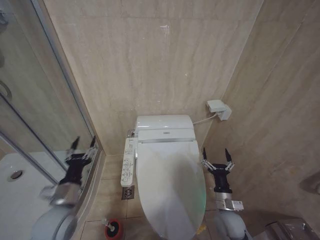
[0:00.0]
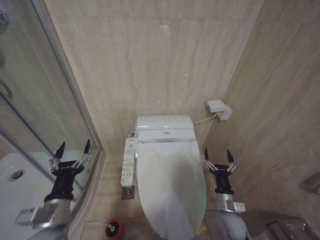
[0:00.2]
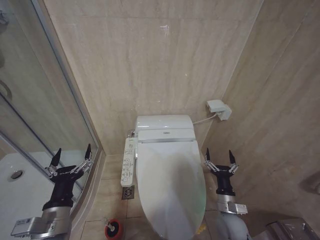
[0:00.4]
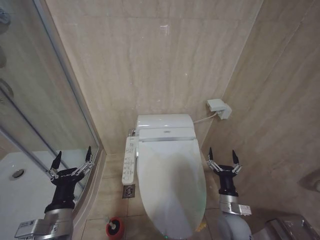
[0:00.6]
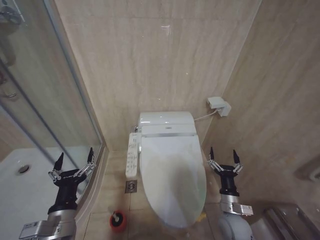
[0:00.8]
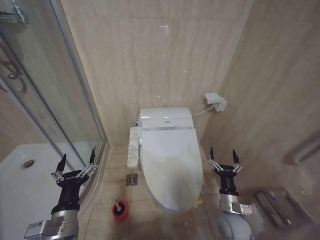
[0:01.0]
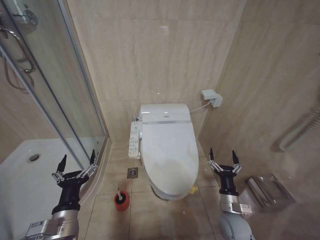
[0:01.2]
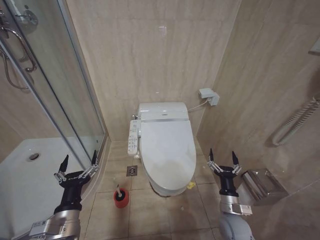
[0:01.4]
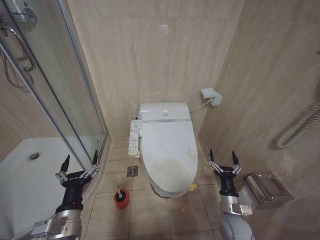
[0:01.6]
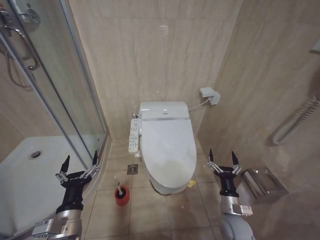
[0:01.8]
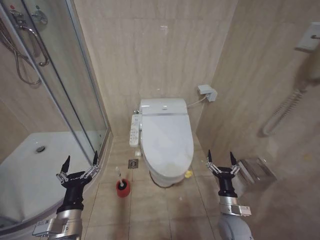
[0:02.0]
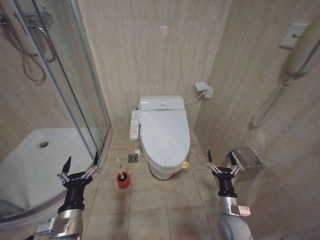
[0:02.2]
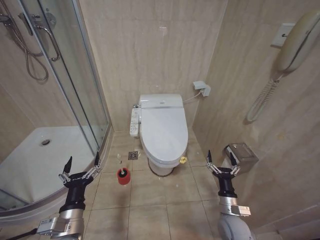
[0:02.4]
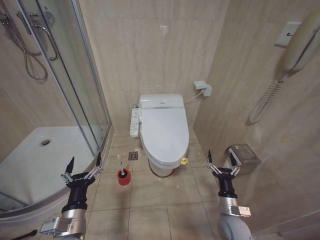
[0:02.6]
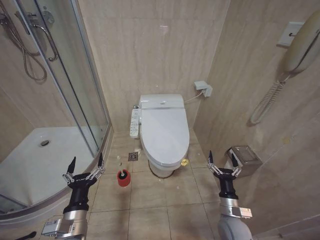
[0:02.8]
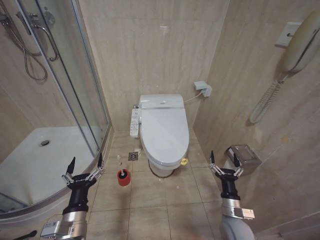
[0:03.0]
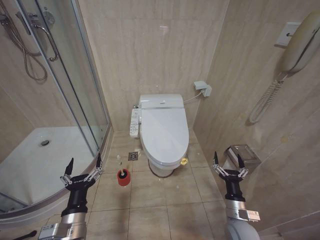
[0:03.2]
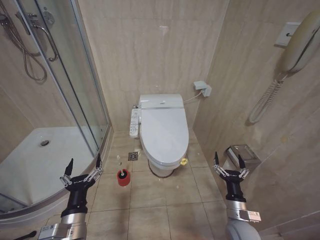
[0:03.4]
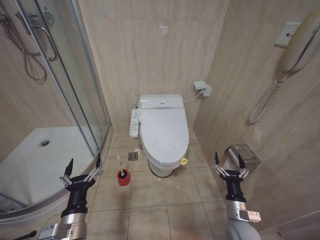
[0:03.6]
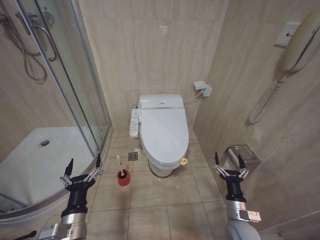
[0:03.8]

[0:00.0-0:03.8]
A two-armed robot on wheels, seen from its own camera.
Task of the whole recording: Open the toilet lid, clean the toilet bowl with a toilet brush, close the toilet lid, and flush.
0:00.0 to 0:01.2: The left gripper travels backward by roughly 10 cm, and opens its fingers.
0:02.6 to 0:03.8: The grippers make only small movements.

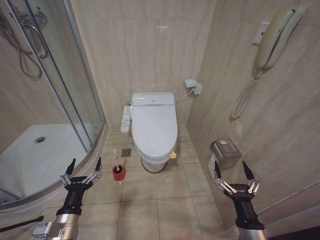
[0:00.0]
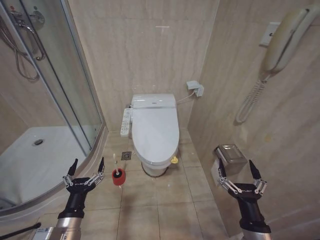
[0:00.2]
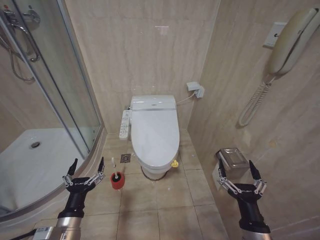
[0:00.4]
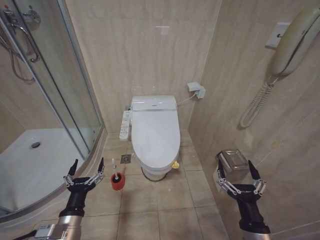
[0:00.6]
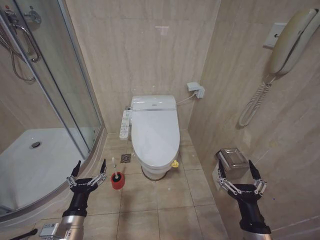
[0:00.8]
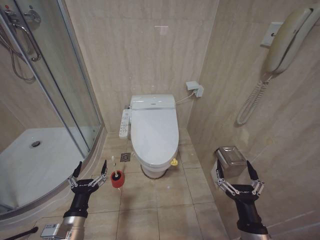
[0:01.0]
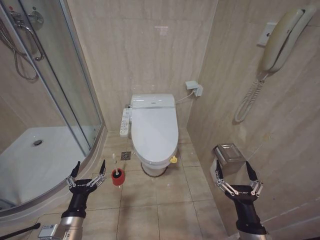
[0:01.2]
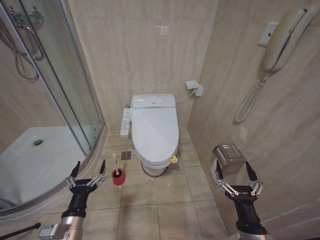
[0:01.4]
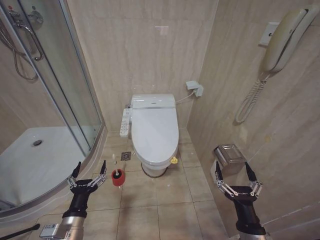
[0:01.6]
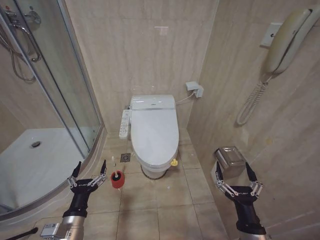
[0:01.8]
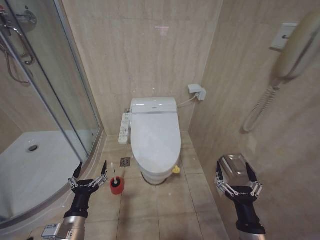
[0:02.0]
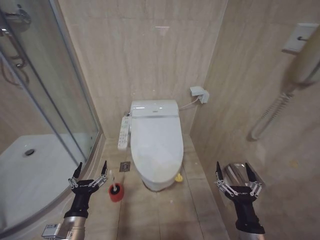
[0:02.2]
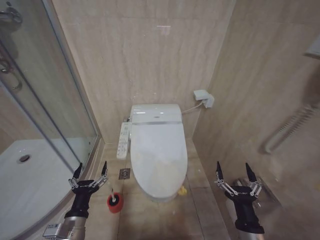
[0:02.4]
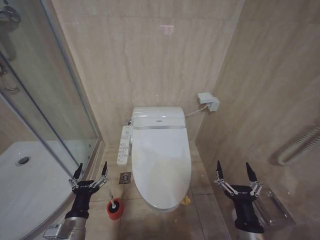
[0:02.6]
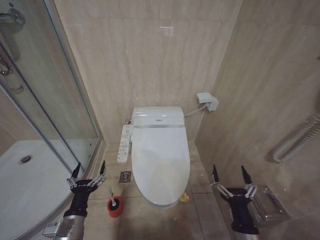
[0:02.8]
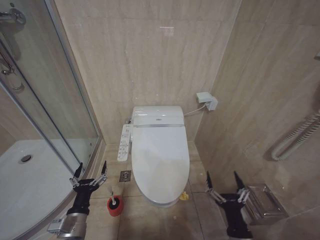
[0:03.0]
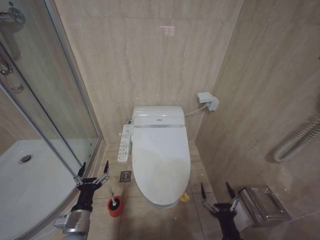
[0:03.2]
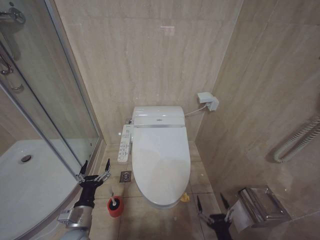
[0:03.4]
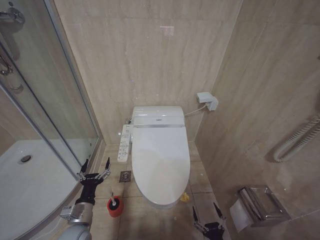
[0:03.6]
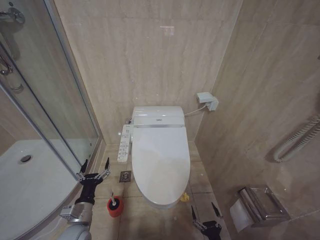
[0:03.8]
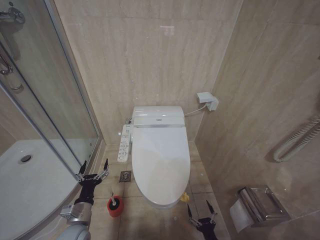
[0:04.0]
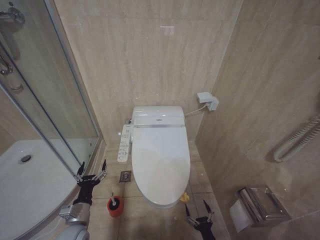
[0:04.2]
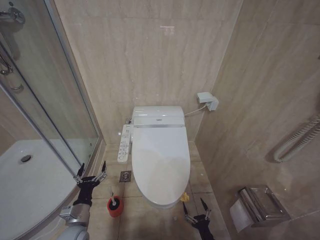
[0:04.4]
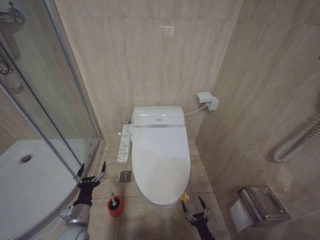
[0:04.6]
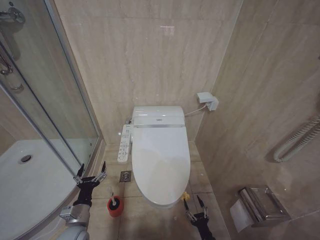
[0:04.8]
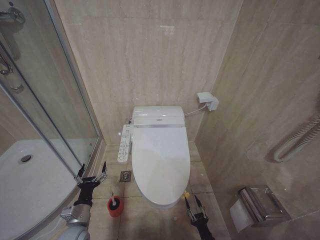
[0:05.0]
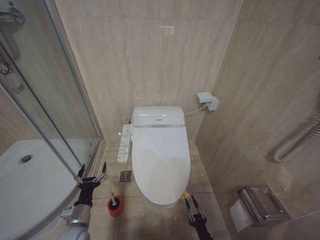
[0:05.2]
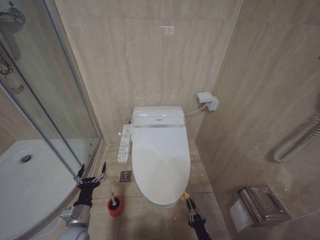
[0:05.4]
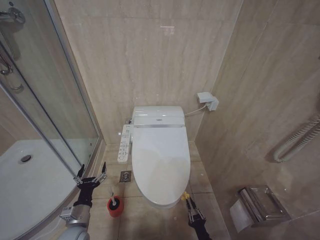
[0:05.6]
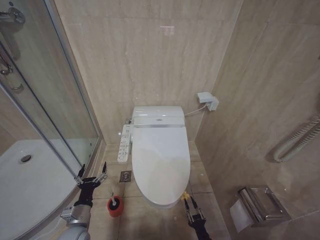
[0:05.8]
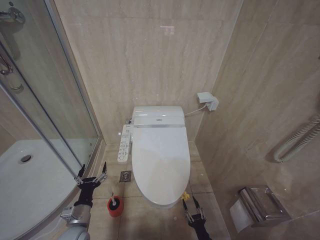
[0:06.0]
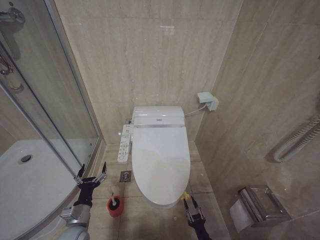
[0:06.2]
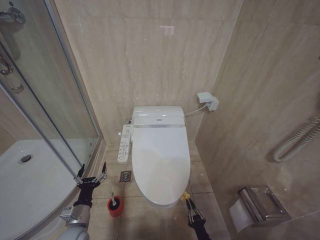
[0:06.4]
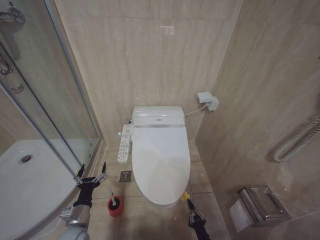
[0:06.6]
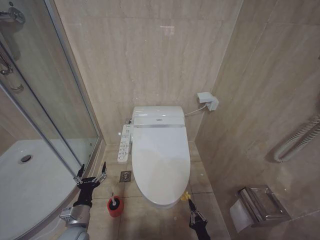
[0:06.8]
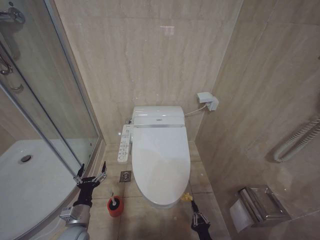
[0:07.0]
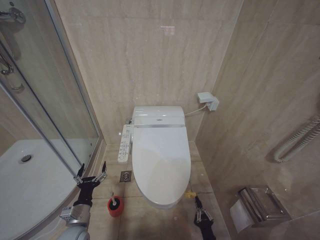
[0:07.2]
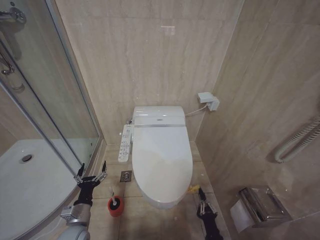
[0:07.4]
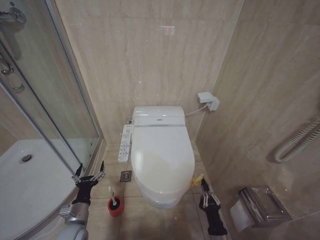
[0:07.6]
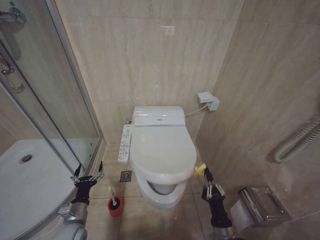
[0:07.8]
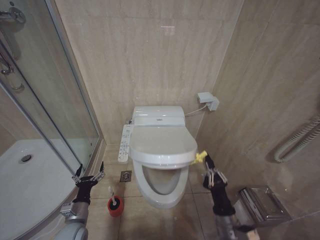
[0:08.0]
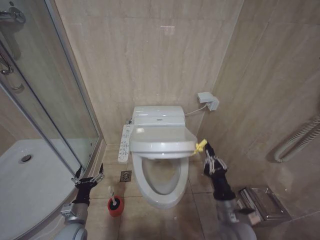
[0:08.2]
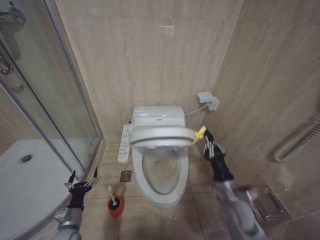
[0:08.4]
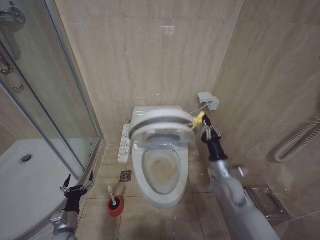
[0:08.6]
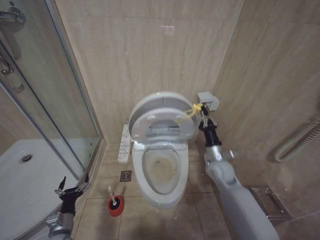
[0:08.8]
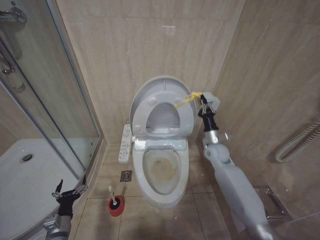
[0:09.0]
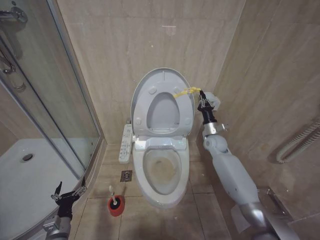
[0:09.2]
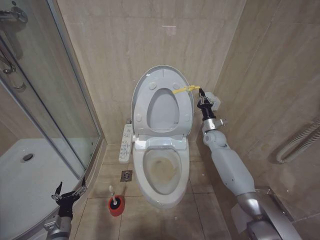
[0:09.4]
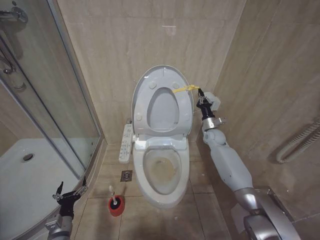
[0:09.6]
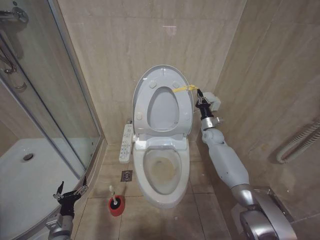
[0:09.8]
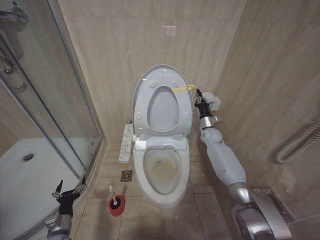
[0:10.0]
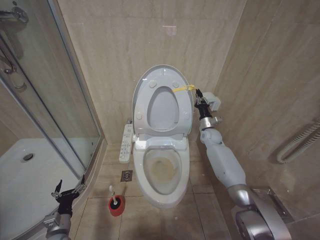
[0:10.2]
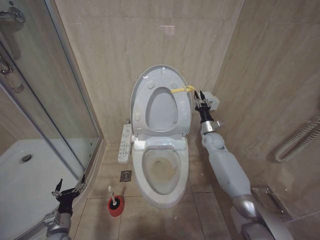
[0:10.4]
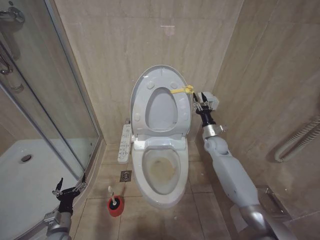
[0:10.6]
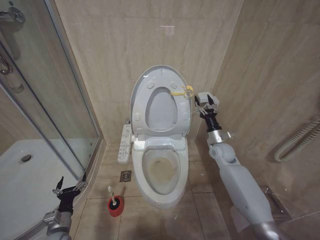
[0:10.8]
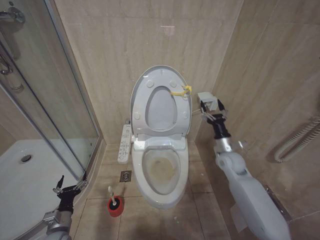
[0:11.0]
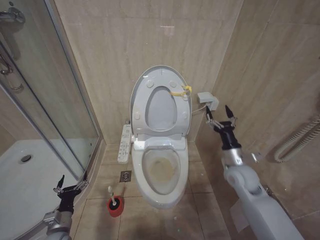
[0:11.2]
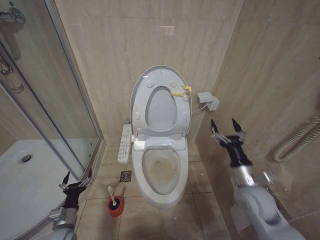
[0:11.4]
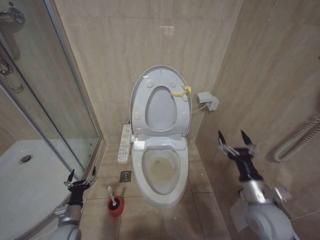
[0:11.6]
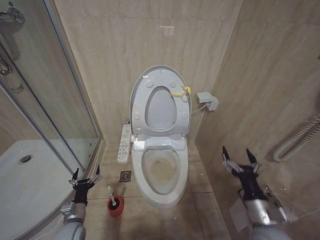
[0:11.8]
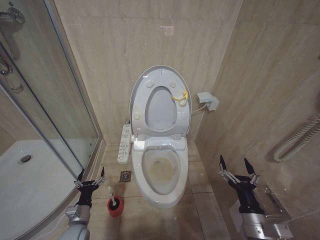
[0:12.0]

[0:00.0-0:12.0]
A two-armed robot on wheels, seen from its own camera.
Task of the whole recording: Open the toilet lid, clean the toilet bowl with a toilet brush, close the toilet lid, and flush.
0:03.0 to 0:04.4: The left gripper is displaced downward by some 5 cm. The right gripper goes about 25 cm downward.
0:06.0 to 0:07.6: The right gripper moves upward, about 10 cm, and closes up.
0:07.6 to 0:09.0: The left gripper is displaced to the left by roughly 5 cm, while the right gripper moves forward and upward, about 40 cm.
0:09.0 to 0:10.4: The right gripper shifts about 10 cm forward.
0:10.4 to 0:12.0: The right gripper shifts roughly 40 cm backward, and opens up. Meanwhile the left gripper shifts roughly 5 cm to the right.

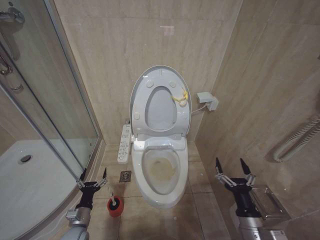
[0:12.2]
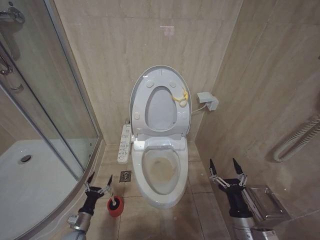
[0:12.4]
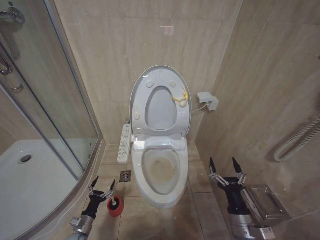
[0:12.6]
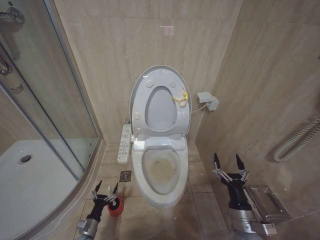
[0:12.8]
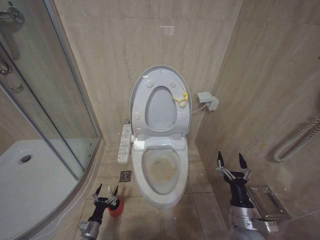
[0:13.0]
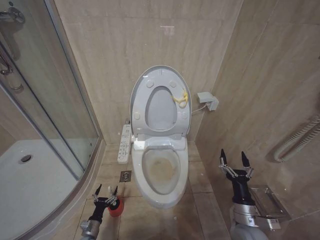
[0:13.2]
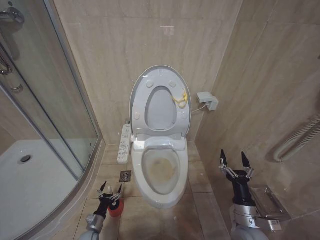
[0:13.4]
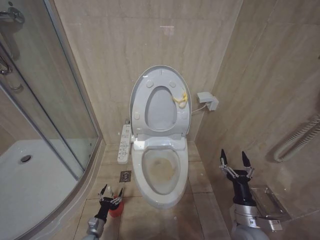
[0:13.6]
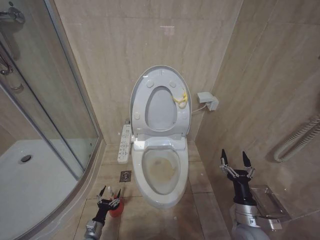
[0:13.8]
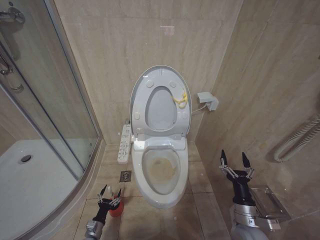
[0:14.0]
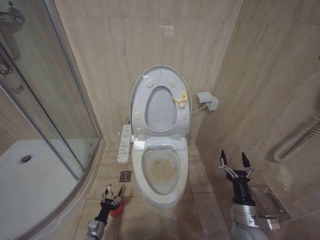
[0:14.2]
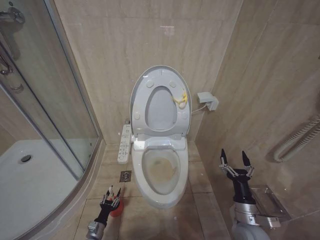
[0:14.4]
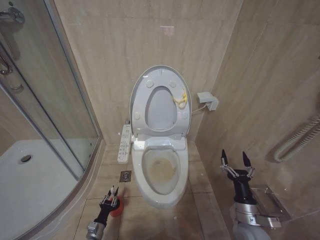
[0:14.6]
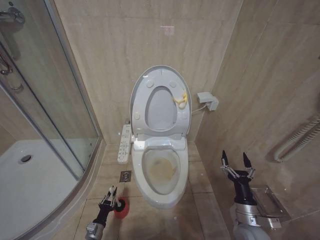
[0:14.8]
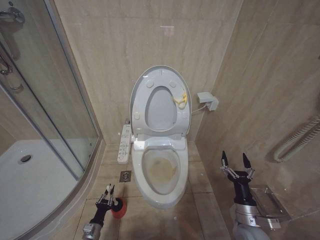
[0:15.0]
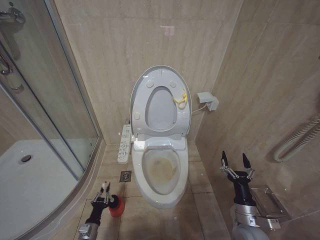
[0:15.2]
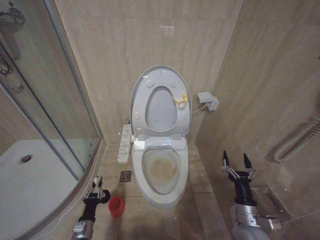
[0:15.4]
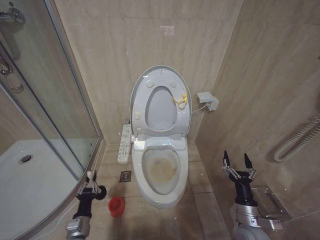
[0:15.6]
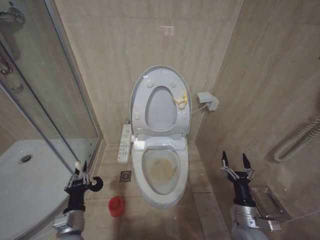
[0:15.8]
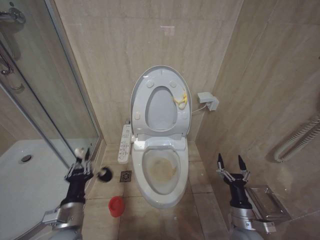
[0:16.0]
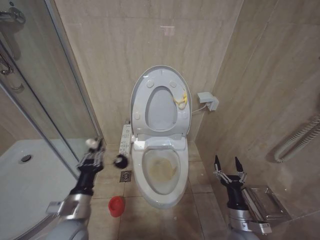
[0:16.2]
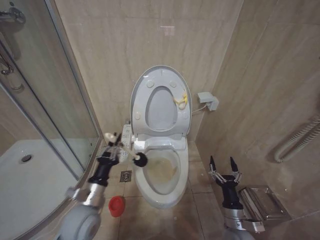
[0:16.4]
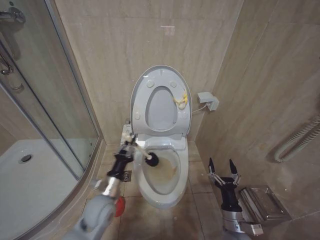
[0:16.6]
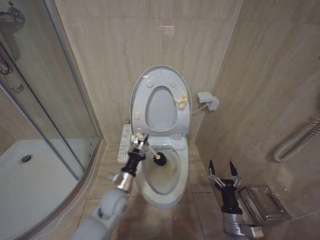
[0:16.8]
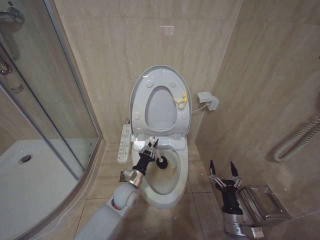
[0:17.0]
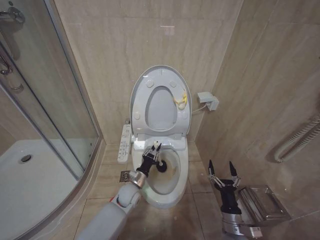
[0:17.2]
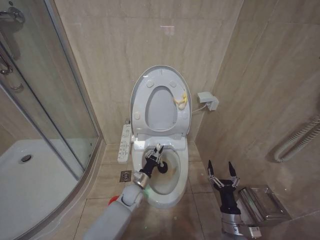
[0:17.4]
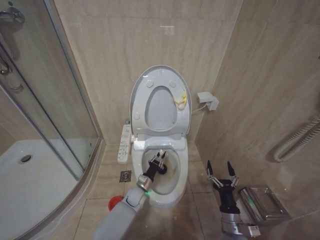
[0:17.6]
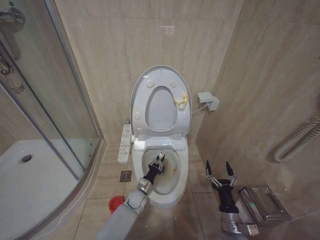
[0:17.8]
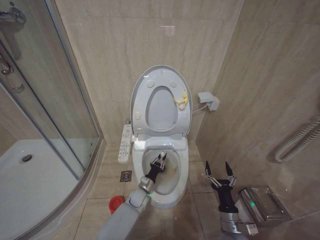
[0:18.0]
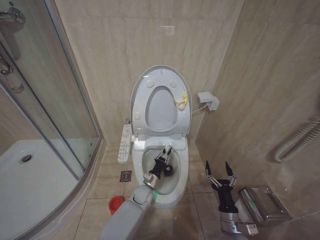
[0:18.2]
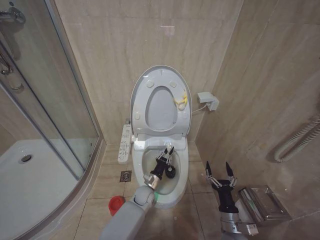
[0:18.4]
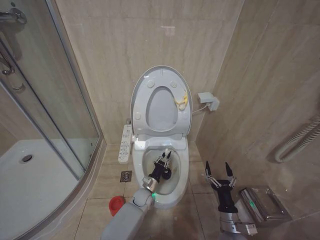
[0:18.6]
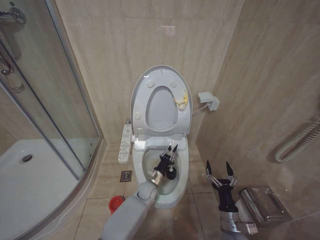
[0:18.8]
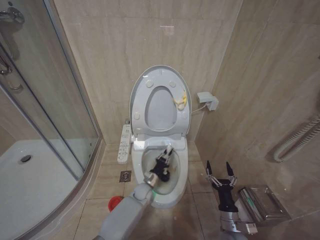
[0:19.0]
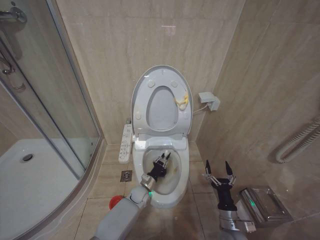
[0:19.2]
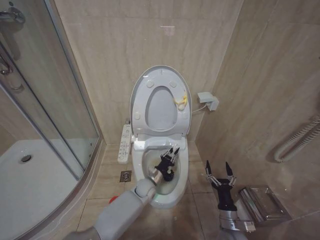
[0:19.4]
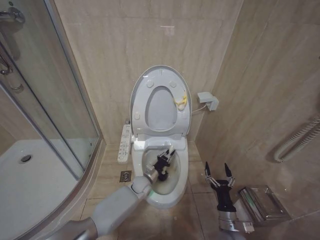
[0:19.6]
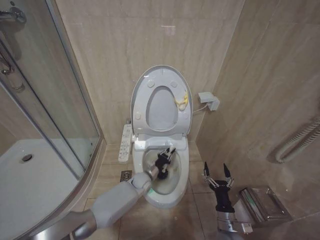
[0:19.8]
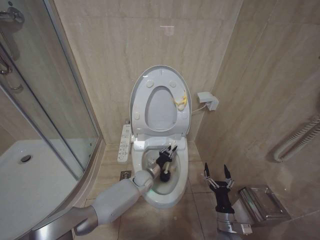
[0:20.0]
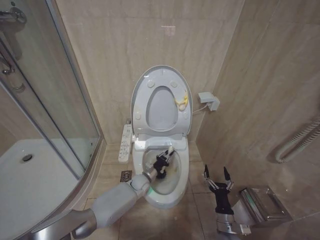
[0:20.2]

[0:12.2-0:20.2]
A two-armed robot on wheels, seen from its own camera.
Task of the whole recording: Open the toilet lid, clean the toilet bowl with a toilet brush, close the toilet lid, and flush.
0:12.2 to 0:13.8: The right gripper ends up roughly 5 cm from where it was. Meanwhile the left gripper heads downward, covering about 15 cm.
0:13.8 to 0:15.4: The left gripper travels upward by about 10 cm, and closes.
0:15.4 to 0:17.0: The left gripper shifts roughly 25 cm to the right, upward and forward; the right gripper moves about 5 cm.
0:17.0 to 0:18.6: The left gripper swings up and down, roughly 15 cm each way, with 2 reversals.
0:18.6 to 0:20.2: The left gripper moves up and down over approximately 10 cm, changing direction 2 times.
